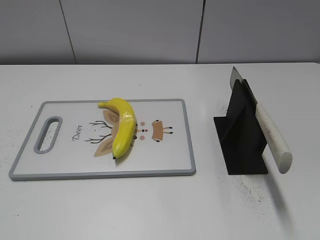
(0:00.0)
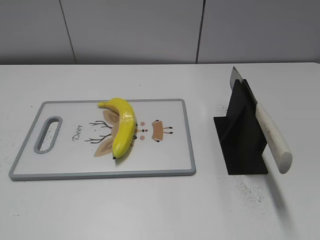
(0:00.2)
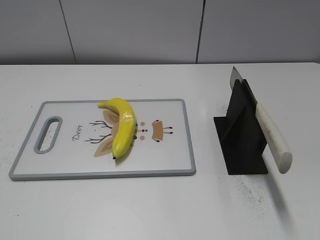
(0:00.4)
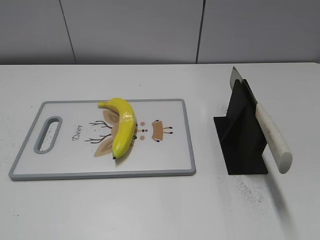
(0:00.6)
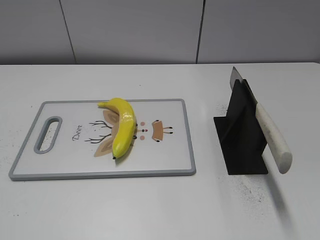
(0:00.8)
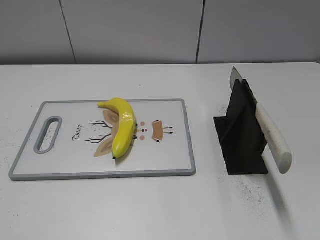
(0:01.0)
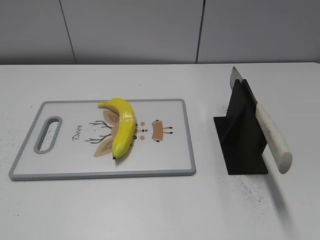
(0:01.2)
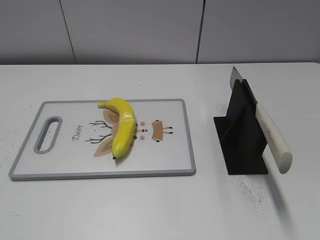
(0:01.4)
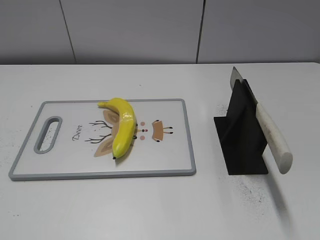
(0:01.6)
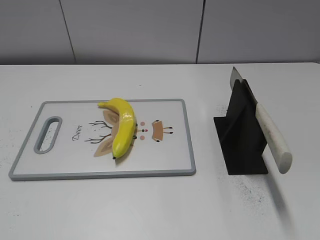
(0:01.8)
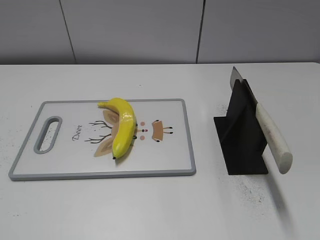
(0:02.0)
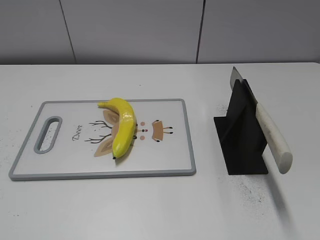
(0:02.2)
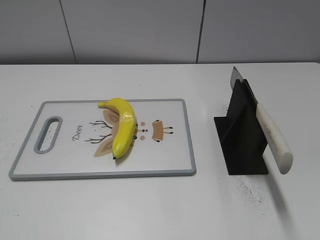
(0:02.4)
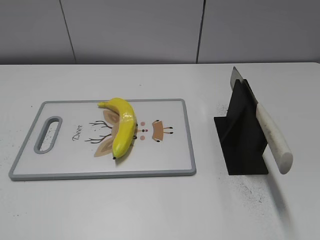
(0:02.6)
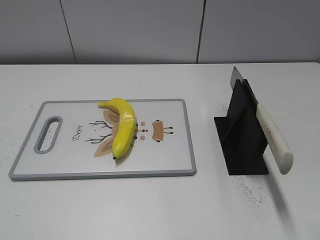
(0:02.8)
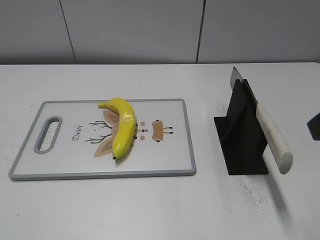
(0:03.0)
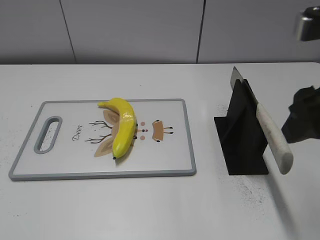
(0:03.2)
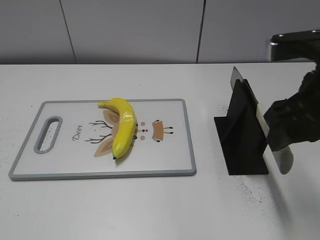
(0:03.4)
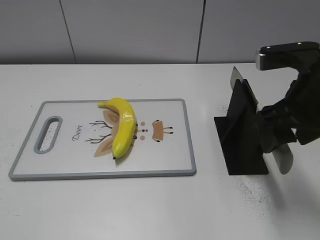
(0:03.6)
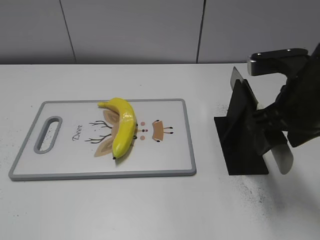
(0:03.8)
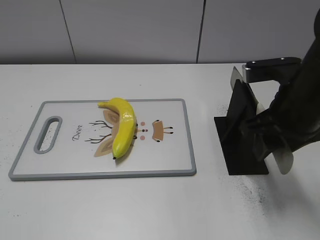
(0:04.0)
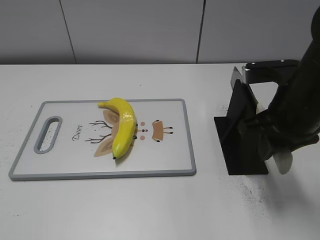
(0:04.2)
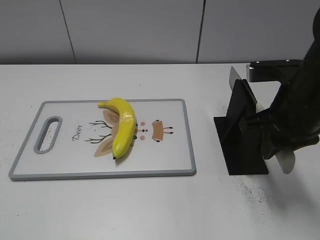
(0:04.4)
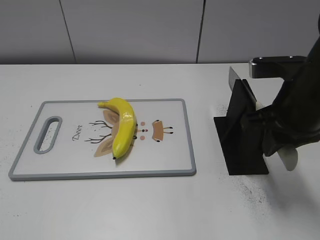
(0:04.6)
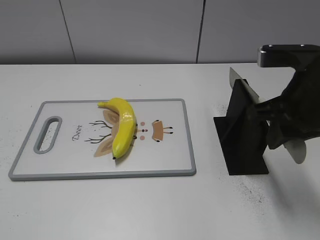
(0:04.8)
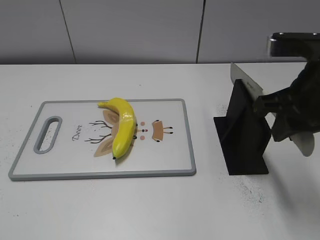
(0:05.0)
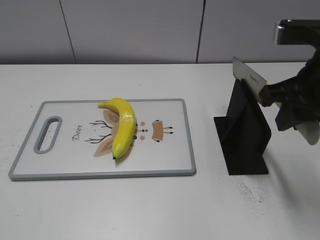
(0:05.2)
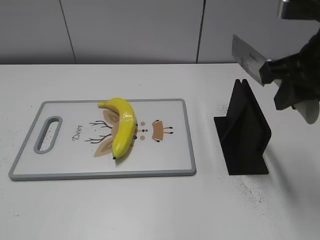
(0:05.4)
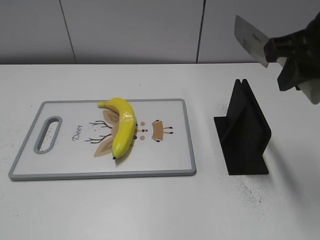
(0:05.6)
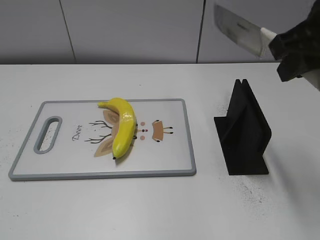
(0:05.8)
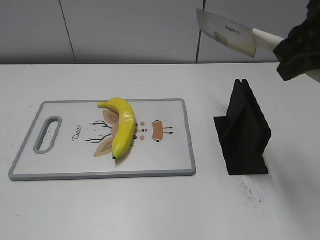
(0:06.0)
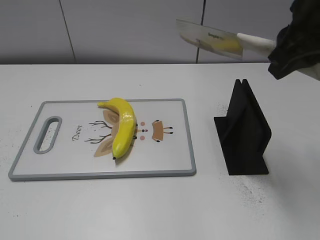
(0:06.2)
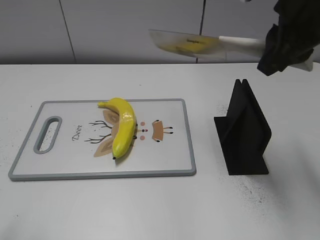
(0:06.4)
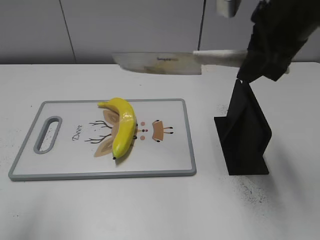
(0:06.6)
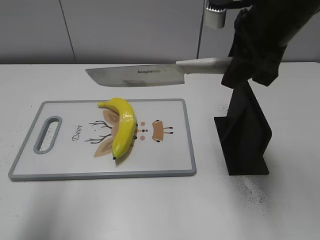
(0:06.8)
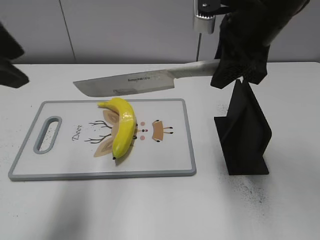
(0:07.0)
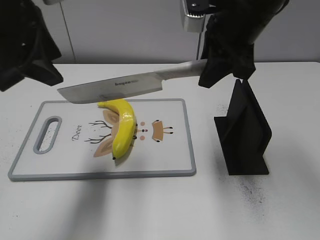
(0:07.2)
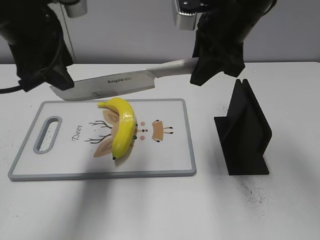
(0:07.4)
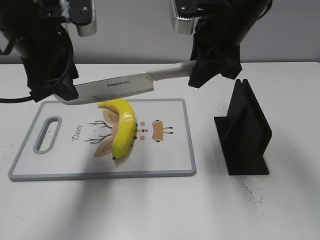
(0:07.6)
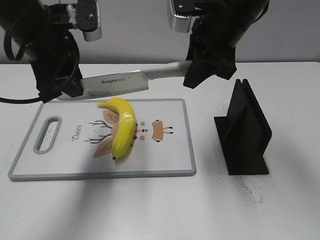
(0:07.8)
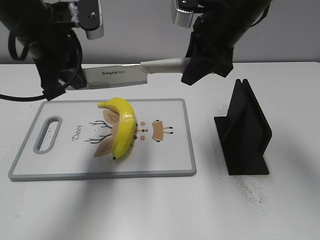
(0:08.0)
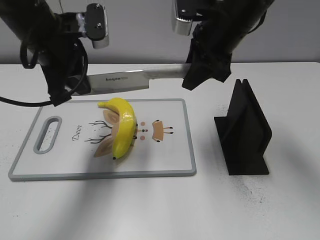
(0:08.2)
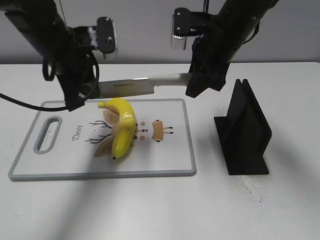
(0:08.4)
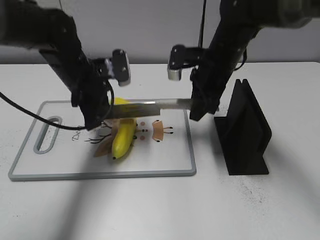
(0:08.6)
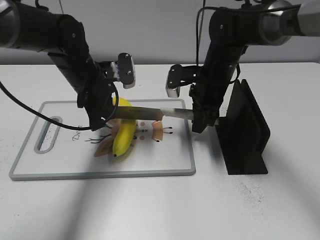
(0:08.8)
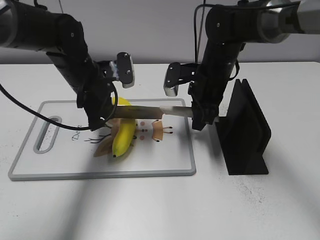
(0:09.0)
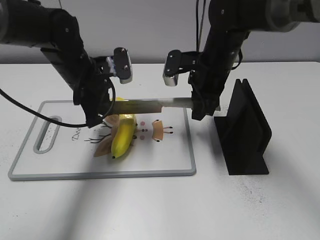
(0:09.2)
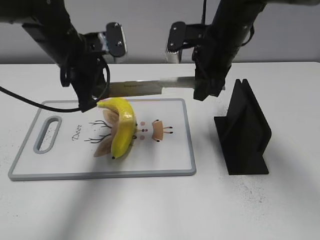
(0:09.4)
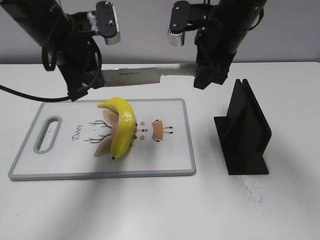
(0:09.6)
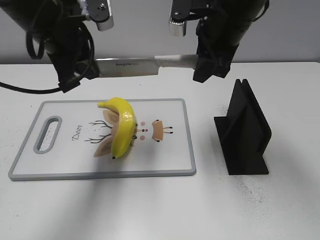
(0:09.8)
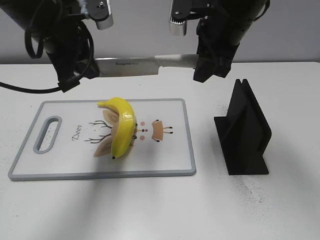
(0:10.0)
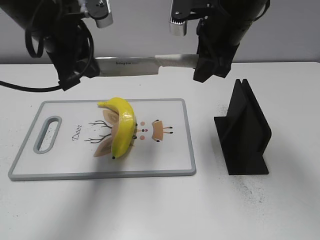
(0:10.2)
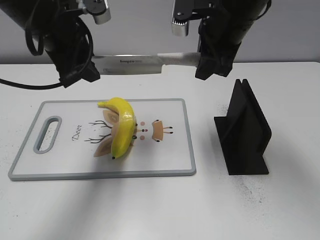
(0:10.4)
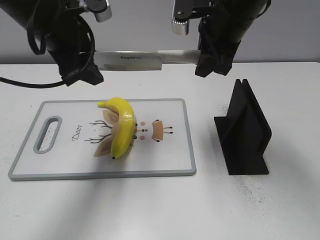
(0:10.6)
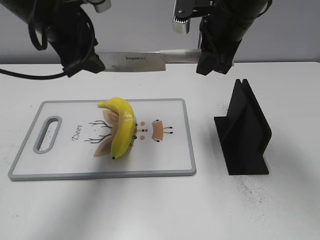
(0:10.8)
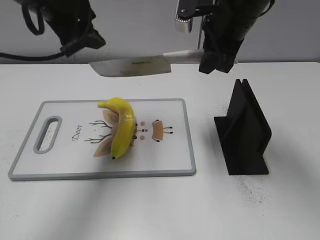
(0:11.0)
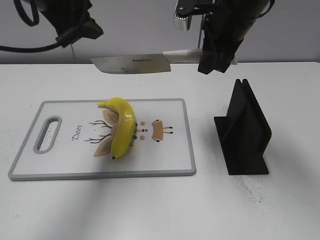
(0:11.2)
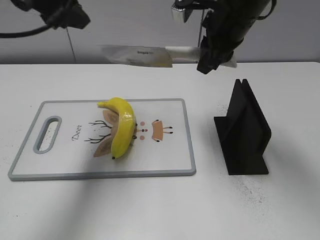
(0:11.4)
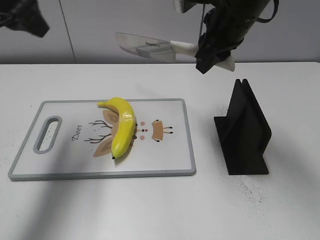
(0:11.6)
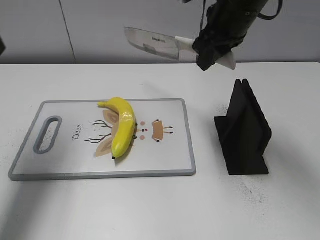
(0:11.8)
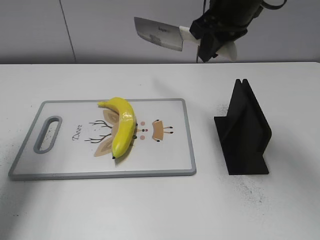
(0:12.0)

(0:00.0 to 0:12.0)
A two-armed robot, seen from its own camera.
Task of the whole recording: cut plastic banana.
Step, 0:00.0 - 0:05.2: Grab the knife handle with your right hand.
Step, 0:05.4 - 0:10.0: Hold the blade with your left hand.
Step, 0:10.2 - 0:11.2: Cut the banana with your right hand.
0:03.0 - 0:04.4: The right gripper heads downward and forward, covering approximately 15 cm, and closes.
0:04.4 - 0:06.0: The right gripper is displaced upward by approximately 10 cm.
0:06.0 - 0:07.6: The left gripper travels forward and to the right by about 35 cm; the right gripper goes approximately 15 cm forward, to the left and downward.
0:07.6 - 0:09.0: The left gripper goes some 15 cm downward and forward, and closes its fingers. Meanwhile the right gripper goes some 15 cm downward.
0:09.0 - 0:10.4: The two grippers go roughly 15 cm upward. The left gripper opens up.
0:10.4 - 0:12.0: The left gripper travels to the left by roughly 15 cm, and opens.

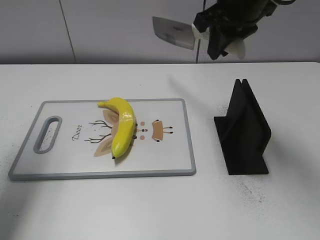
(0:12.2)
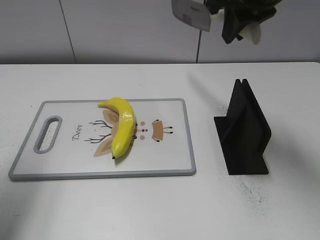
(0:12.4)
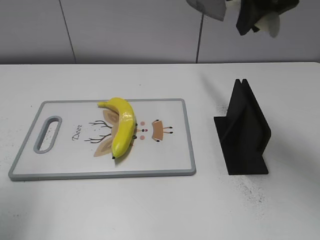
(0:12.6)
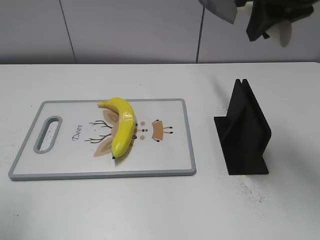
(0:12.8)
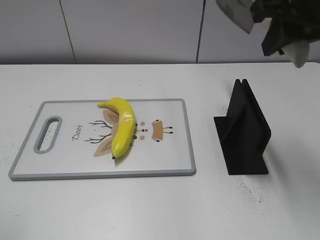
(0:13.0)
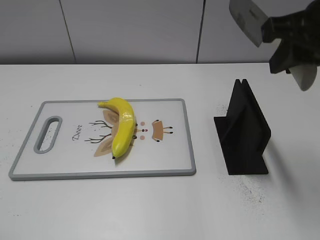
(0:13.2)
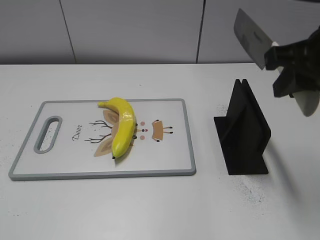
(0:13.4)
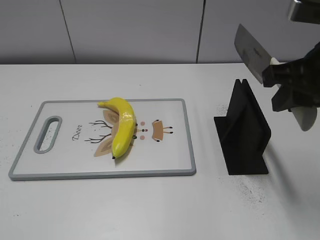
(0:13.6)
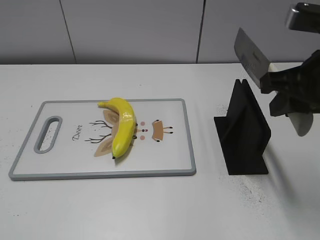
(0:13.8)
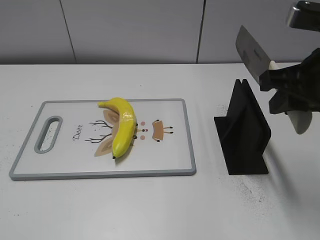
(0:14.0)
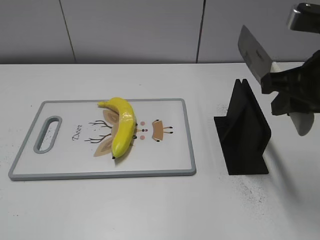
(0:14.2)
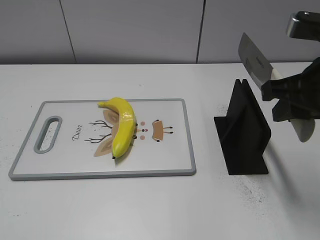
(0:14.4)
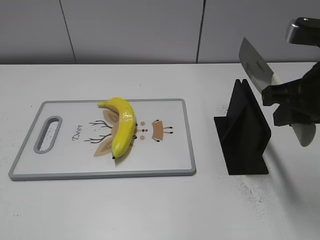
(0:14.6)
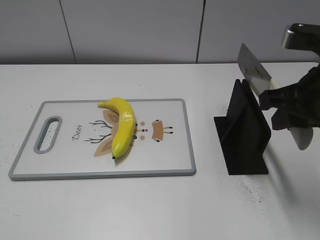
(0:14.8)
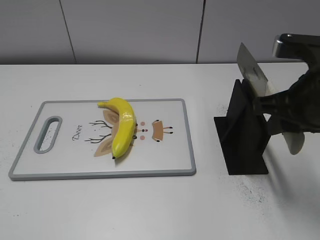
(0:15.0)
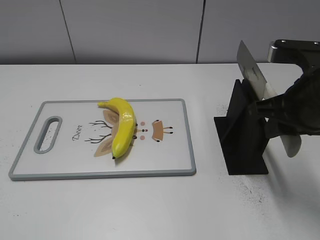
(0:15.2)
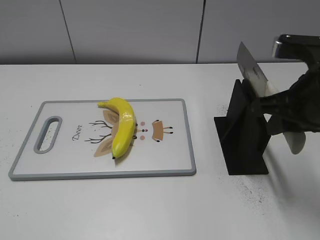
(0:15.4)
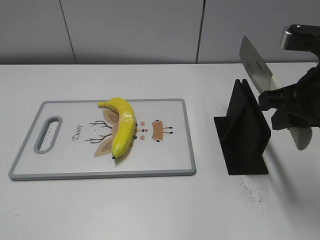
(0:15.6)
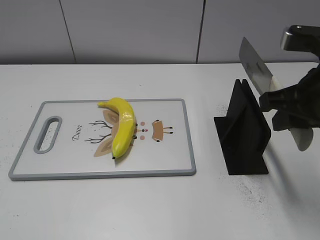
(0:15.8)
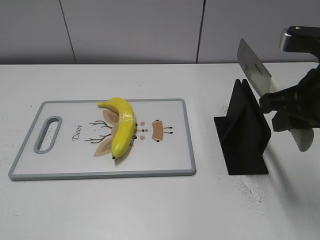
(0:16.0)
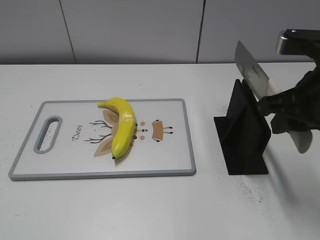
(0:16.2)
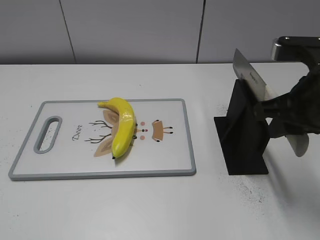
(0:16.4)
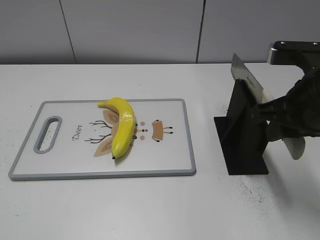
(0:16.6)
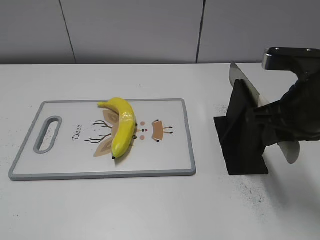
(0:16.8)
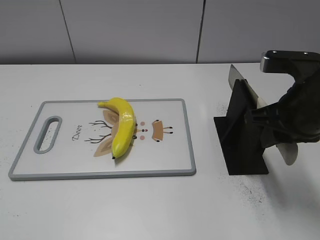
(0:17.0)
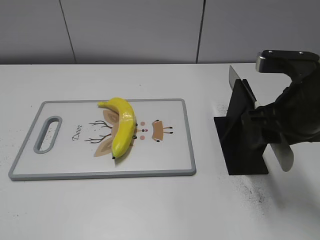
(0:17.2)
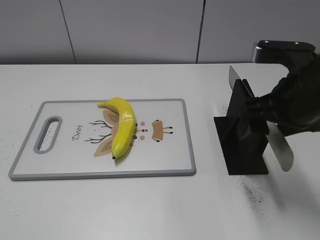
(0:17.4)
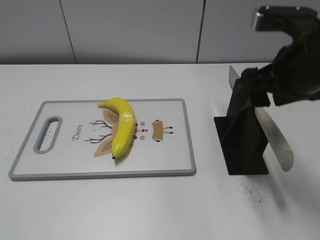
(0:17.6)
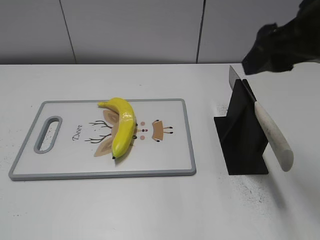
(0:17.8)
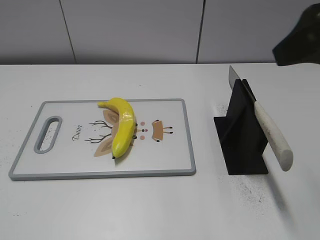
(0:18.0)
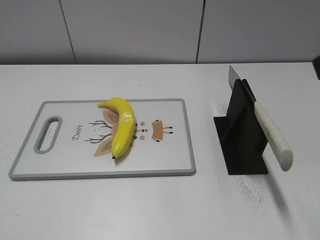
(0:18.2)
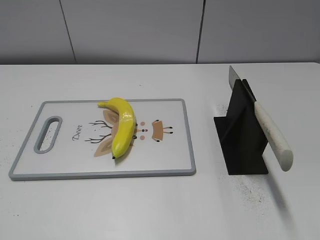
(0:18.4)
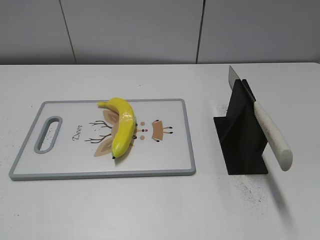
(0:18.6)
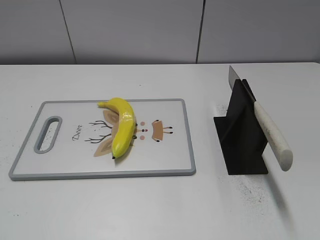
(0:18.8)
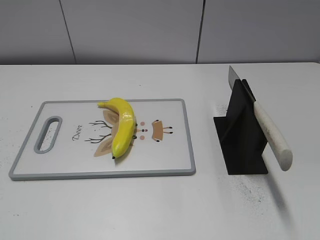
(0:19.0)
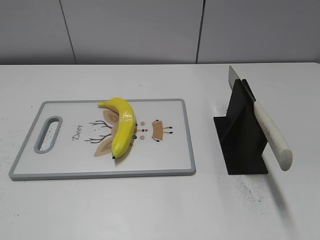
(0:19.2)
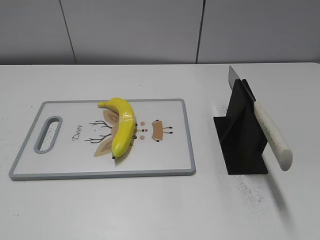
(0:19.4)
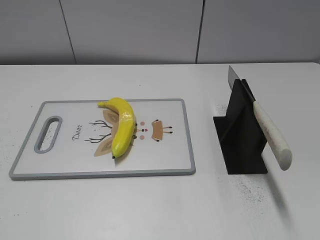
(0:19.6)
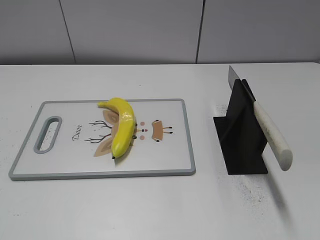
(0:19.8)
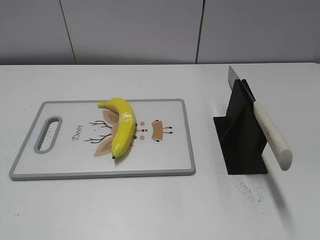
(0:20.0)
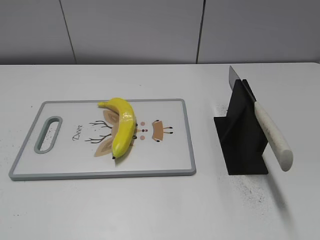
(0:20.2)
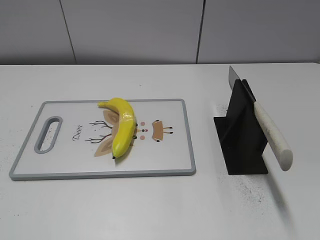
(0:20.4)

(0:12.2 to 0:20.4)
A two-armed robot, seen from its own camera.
Task of the whole recording: cut plastic banana.
Step, 0:12.2 - 0:13.0: Secure the blade with your left hand.
Step, 0:13.2 - 0:20.4: Place the knife on the storage rack with your right hand.
0:12.2 - 0:13.8: The left gripper is displaced backward by roughly 30 cm; the right gripper shifts about 15 cm backward and to the right.
0:13.8 - 0:15.4: The grippers stay close to where they were, moving slightly.
0:15.4 - 0:17.2: The right gripper opens its fingers.
0:17.2 - 0:18.8: The right gripper heads backward and to the right, covering approximately 20 cm, and opens.
